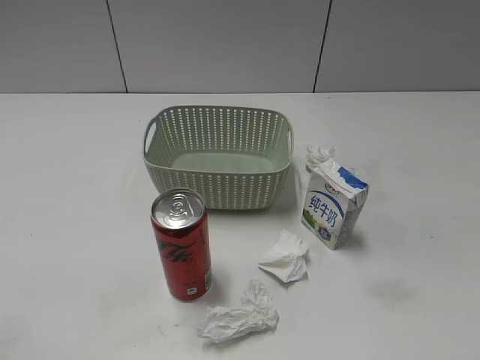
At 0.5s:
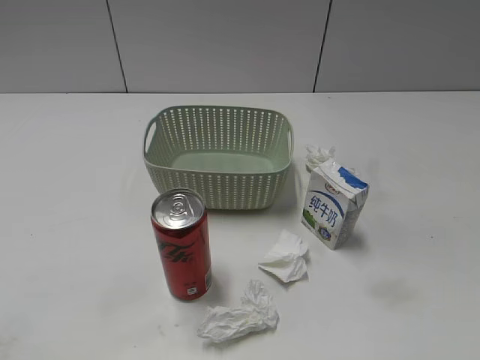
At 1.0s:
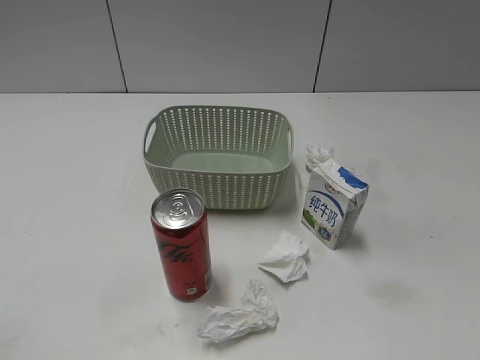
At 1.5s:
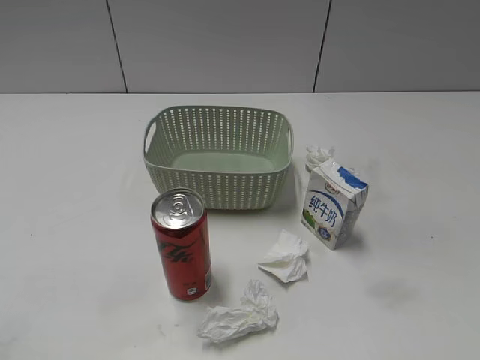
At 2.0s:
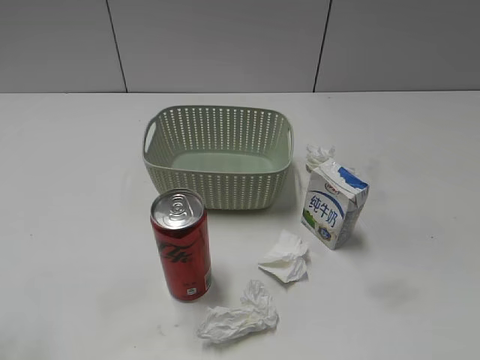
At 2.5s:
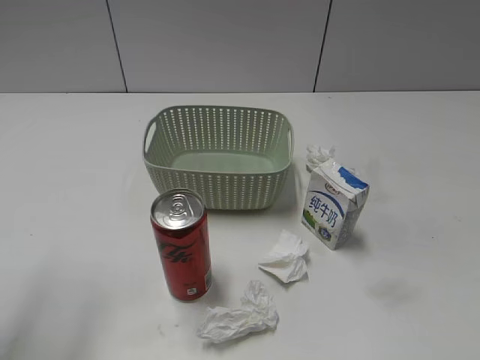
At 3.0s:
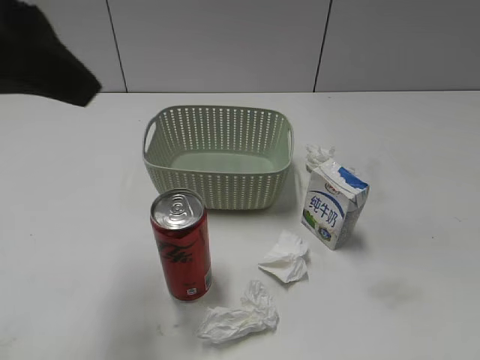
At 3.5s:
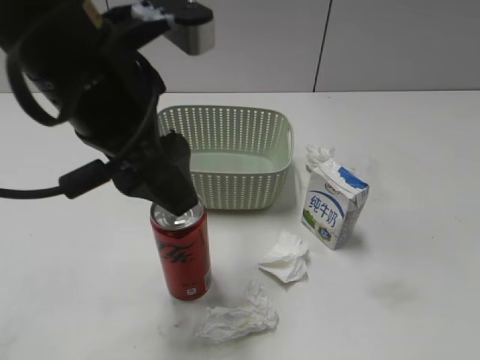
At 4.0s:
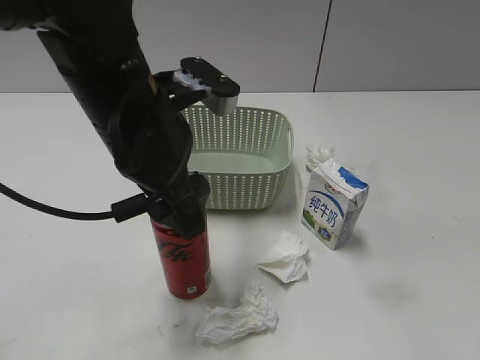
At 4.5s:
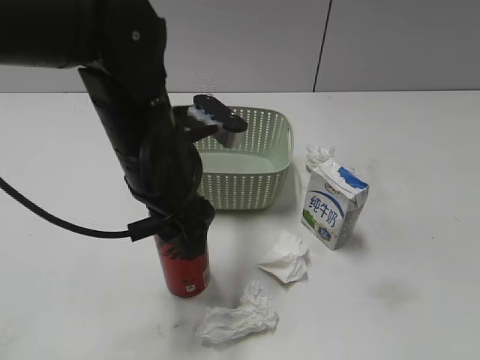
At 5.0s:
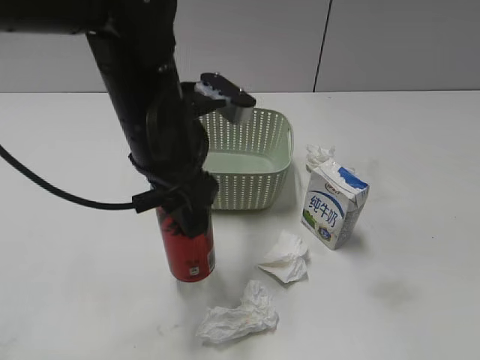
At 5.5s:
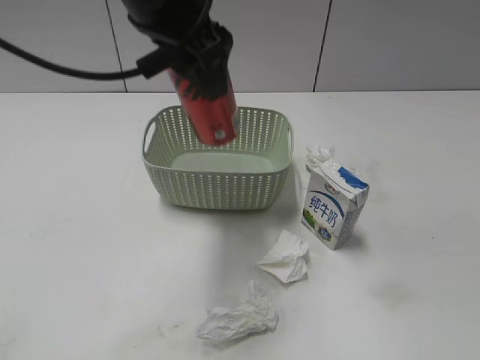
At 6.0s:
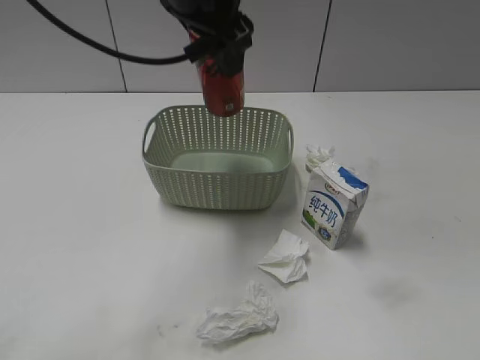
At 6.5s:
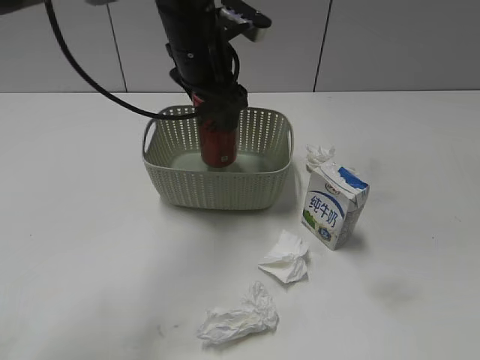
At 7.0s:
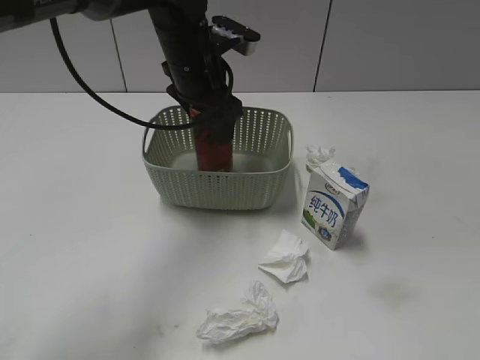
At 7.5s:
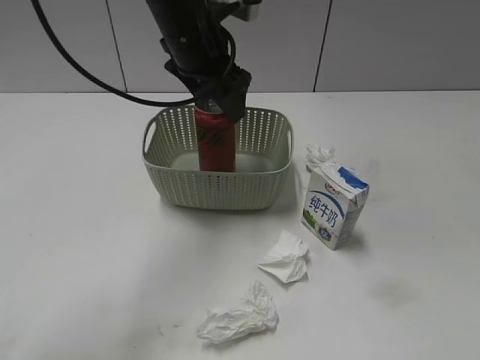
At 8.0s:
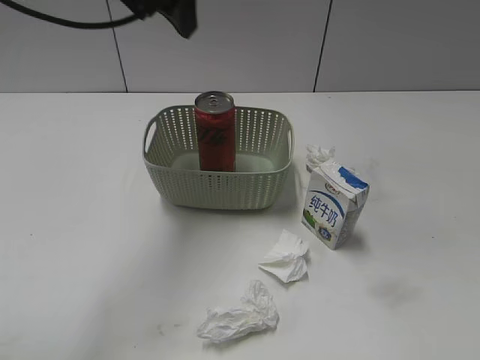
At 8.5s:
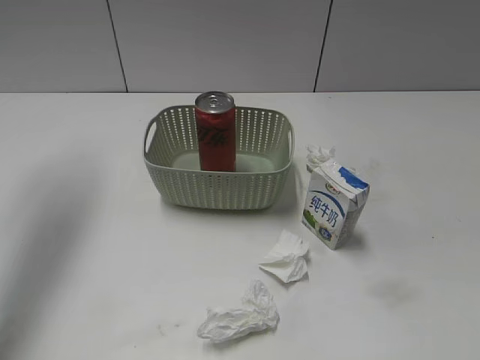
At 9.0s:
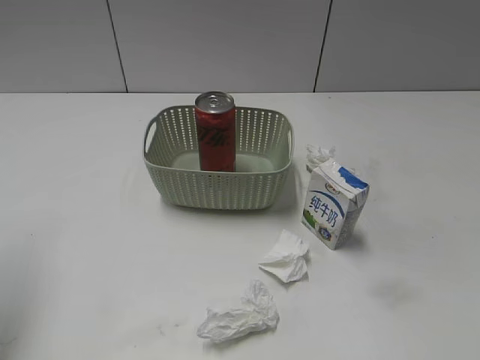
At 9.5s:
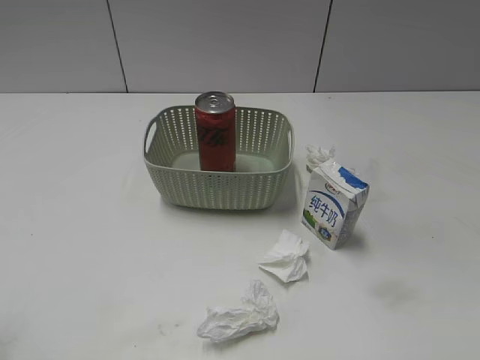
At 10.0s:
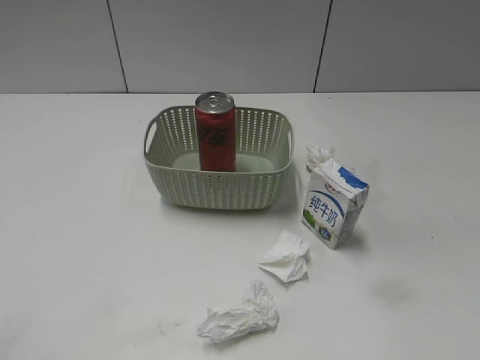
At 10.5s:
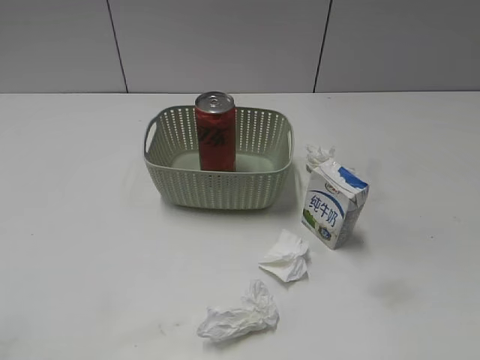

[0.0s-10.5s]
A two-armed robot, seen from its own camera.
Step, 3.0s to 4.5s: Grasp the cola can with left gripper.
Step, 5.0s to 7.5s: Place the cola can in the basket with left gripper.
2.0s to 4.0s: The left gripper shifts about 30 cm to the right, forward and downward, and opens.
4.0s to 6.5s: The left gripper is displaced forward by roughly 15 cm, and closes its fingers.
6.5s to 8.5s: The left gripper heads to the left and upward, covering some 30 cm, and opens its fingers.
8.5s to 10.5s: The left gripper heads backward, covering some 35 cm.

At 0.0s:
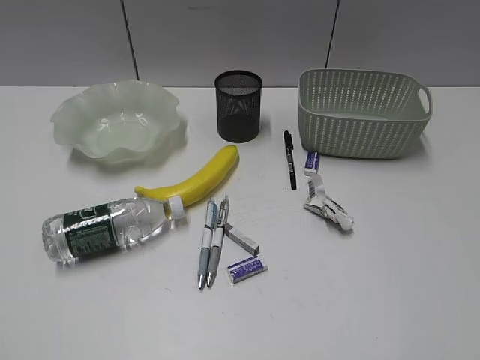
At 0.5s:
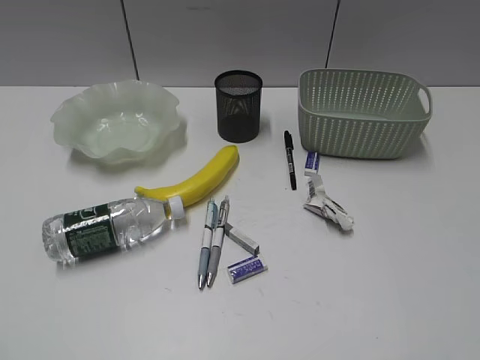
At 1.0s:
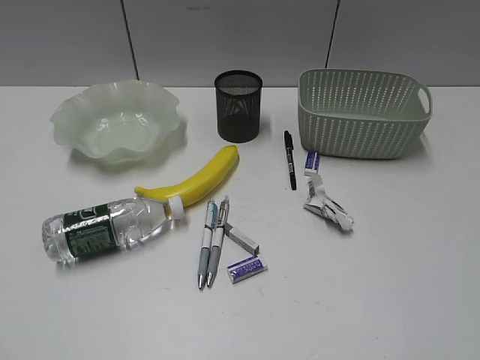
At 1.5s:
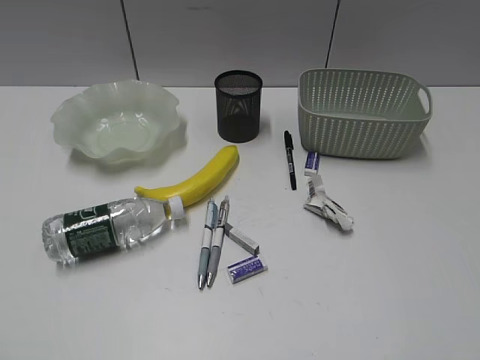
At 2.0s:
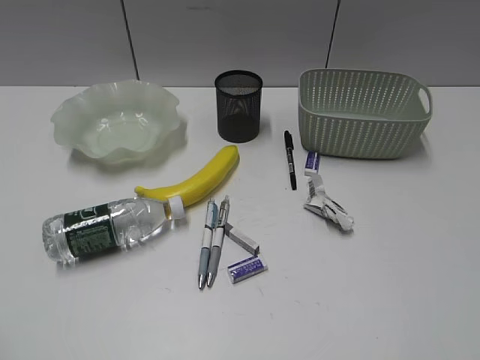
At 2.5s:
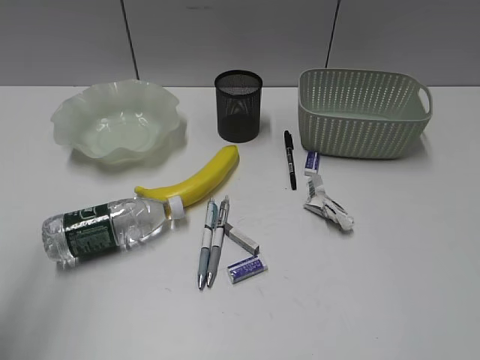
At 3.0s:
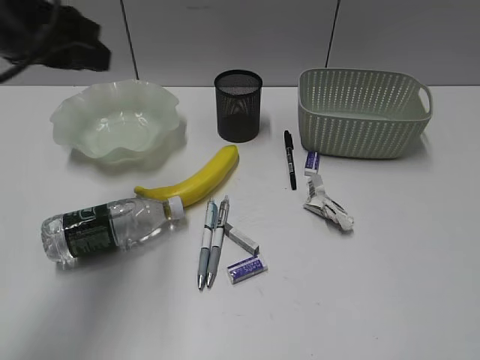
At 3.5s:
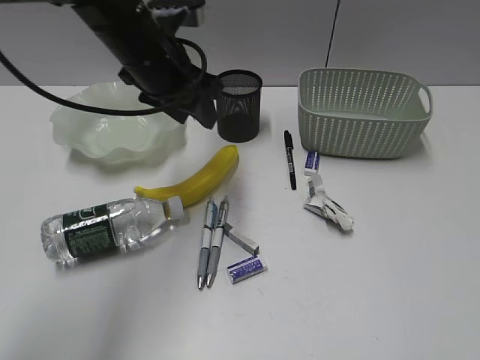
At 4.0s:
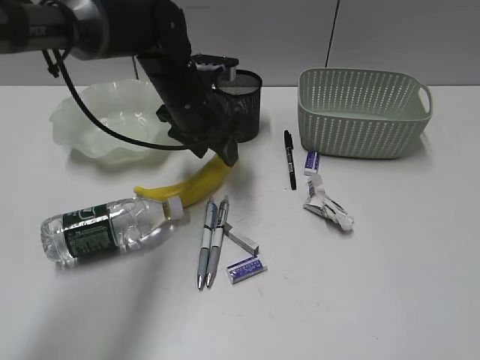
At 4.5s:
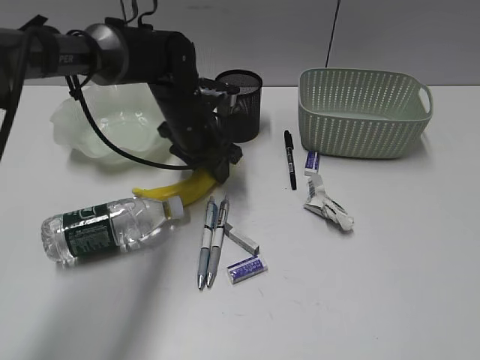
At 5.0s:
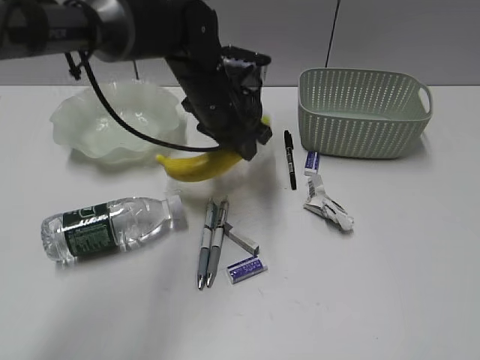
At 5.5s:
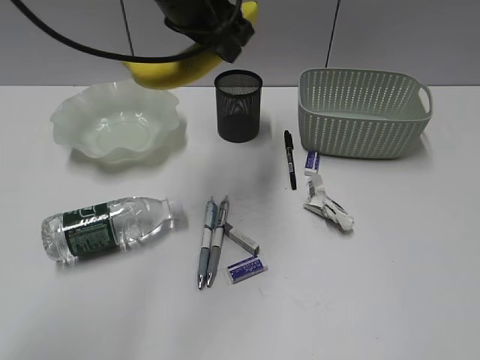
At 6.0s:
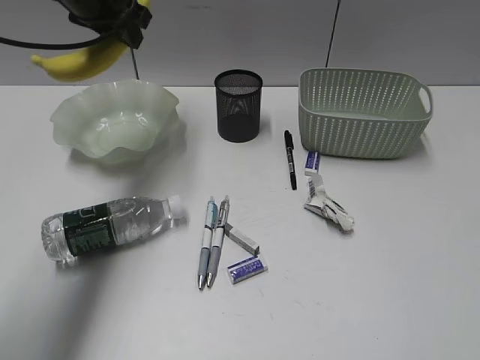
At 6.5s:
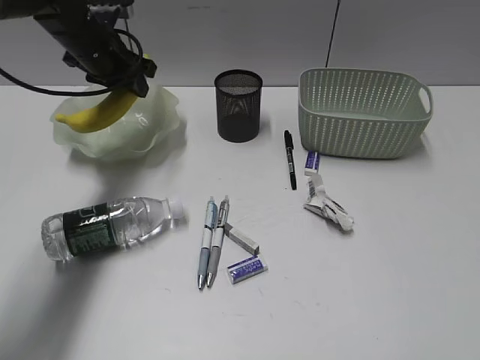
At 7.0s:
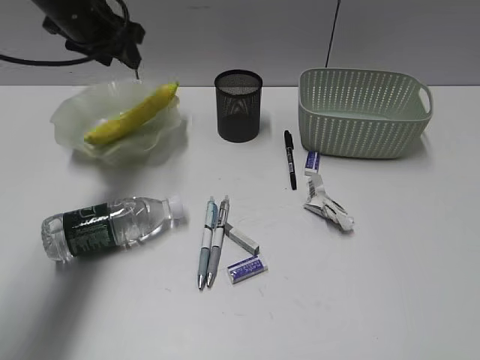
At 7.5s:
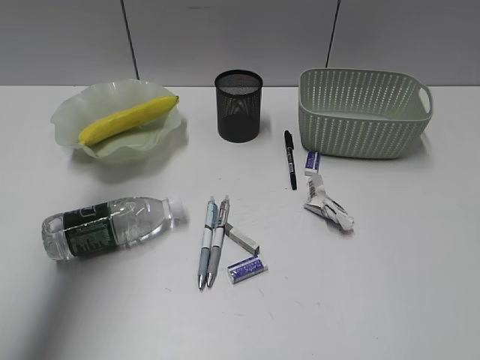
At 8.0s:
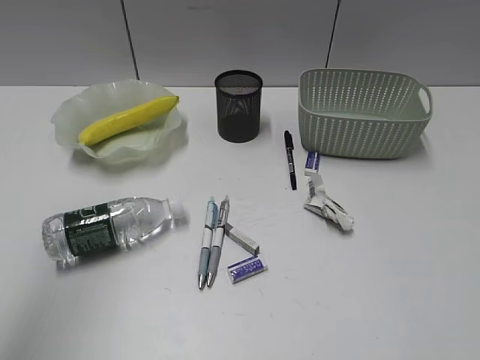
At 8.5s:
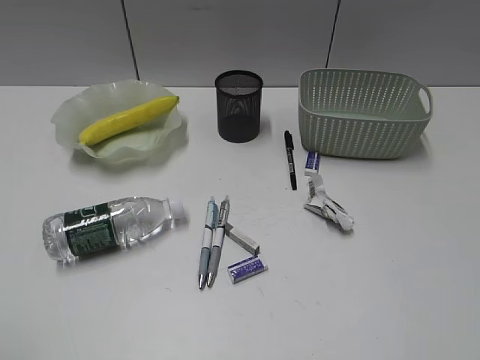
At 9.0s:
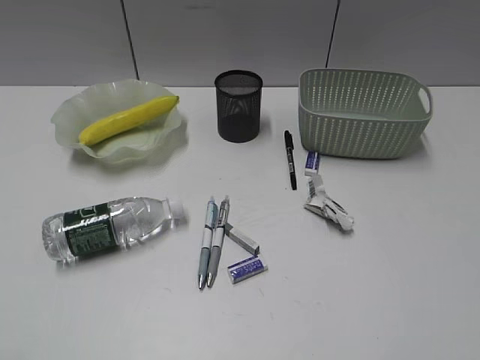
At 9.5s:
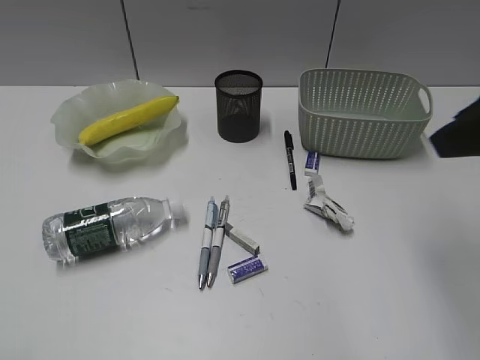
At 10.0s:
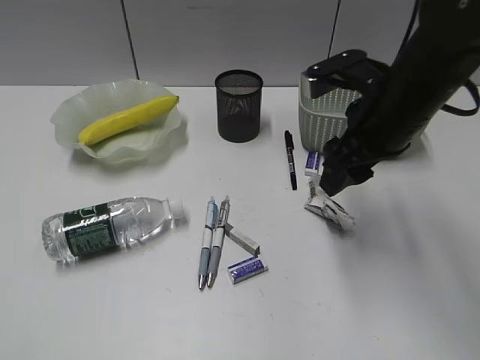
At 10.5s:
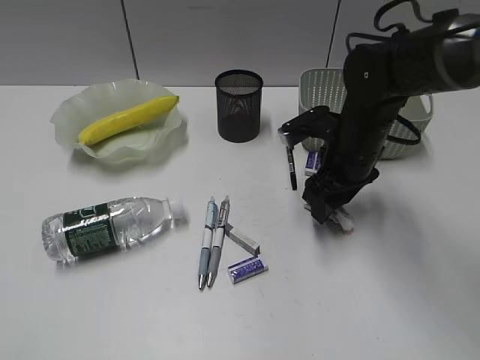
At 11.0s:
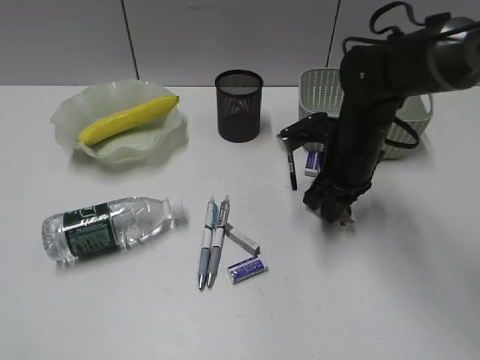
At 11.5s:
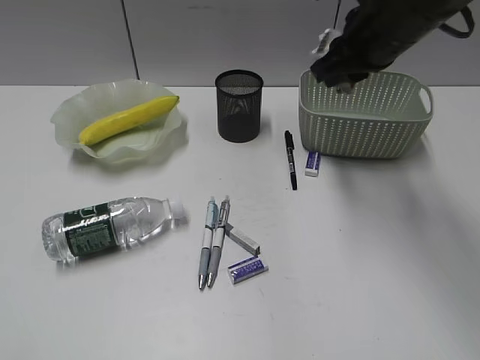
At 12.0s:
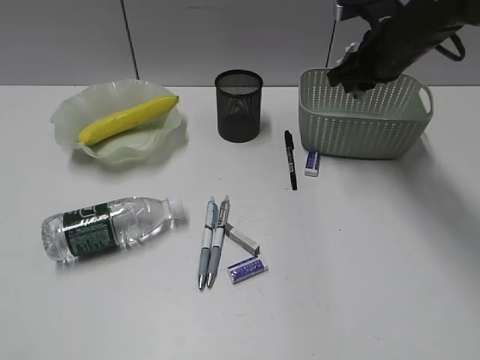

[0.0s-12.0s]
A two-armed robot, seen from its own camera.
Step, 2.0s to 4.5s: Grasp the banana with left gripper.
Step, 2.0s to 6.5s: Place the banana in the plate with left gripper.
Step, 7.0s to 10.5s: Grasp the waste paper with right gripper.
2.0s to 4.0s: The left gripper travels forward and to the right by about 50 cm, and opens its fingers.
4.0s to 6.0s: The left gripper travels upward and to the left by about 15 cm, and closes up.
6.0s to 8.0s: The left gripper moves backward, upward and to the left, approximately 35 cm.
8.0s to 10.0s: The left gripper is displaced downward and backward by approximately 25 cm; the right gripper goes roughly 35 cm forward and to the left, and opens up.
10.0s to 12.0s: The right gripper goes up and down, some 15 cm each way, reversing 2 times, and closes.

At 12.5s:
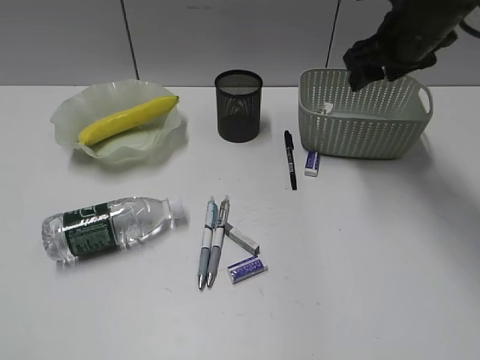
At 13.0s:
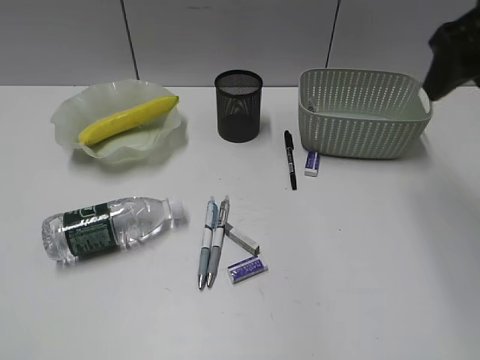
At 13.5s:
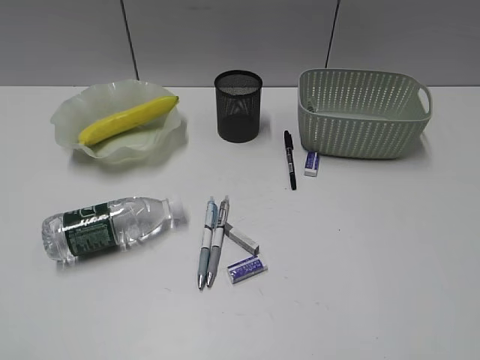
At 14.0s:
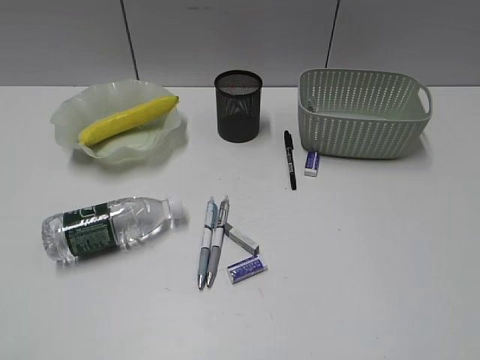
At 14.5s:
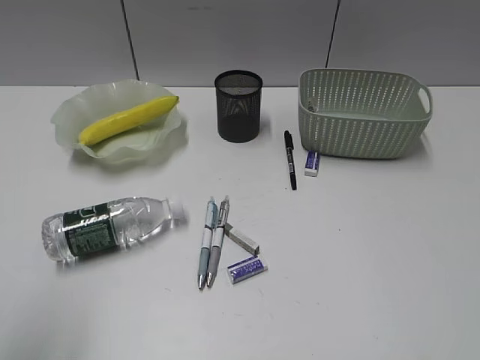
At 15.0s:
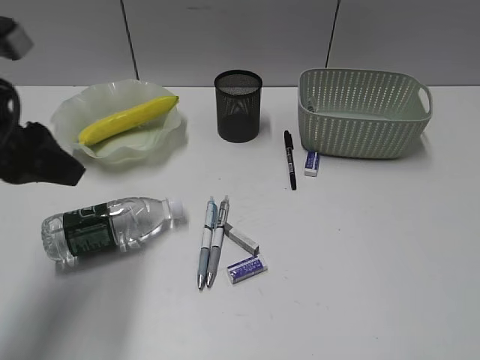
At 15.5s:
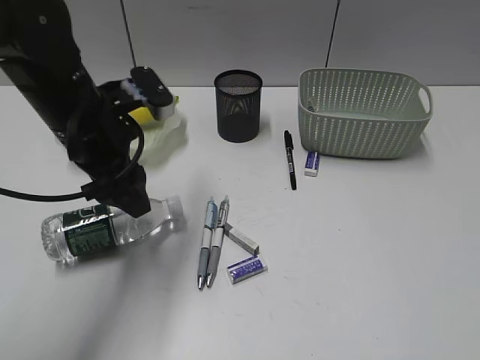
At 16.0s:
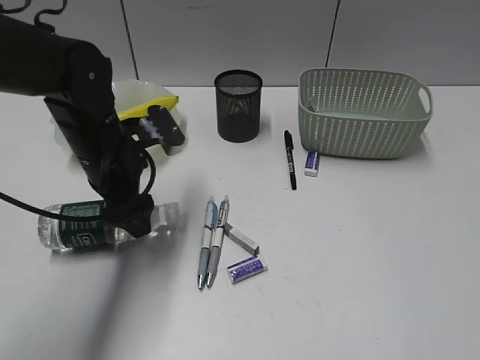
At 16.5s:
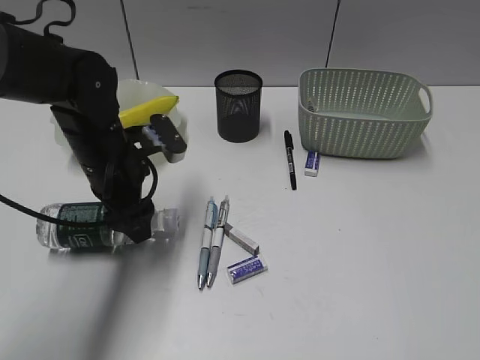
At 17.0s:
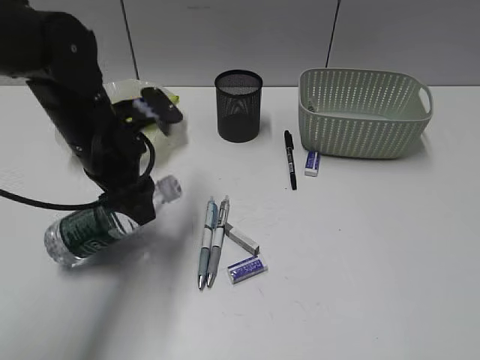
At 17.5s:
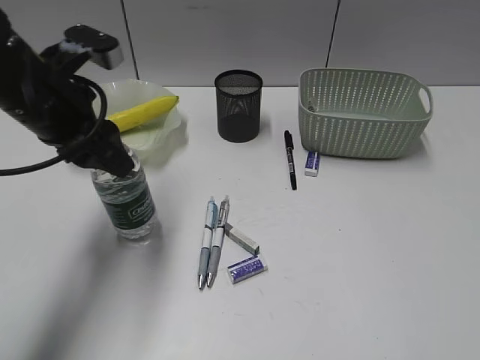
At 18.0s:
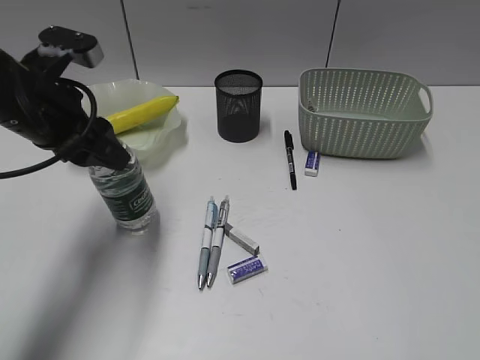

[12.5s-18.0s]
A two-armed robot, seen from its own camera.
Step, 12.5s to 16.0s: Grasp the bottle with left gripper.
12.5s to 14.5s: The left gripper travels forward by roughly 10 cm. Meanwhile the right gripper is displaced backward by some 40 cm.
14.5s to 16.0s: The left gripper goes about 35 cm forward, downward and to the right, and opens up.
16.0s to 18.0s: The left gripper heads upward and to the left, covering roughly 10 cm.
